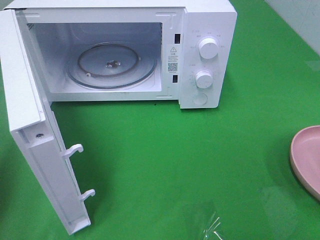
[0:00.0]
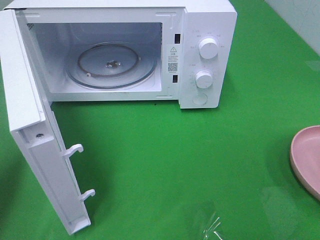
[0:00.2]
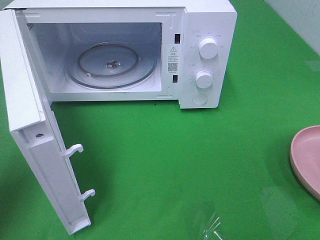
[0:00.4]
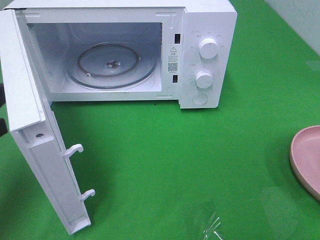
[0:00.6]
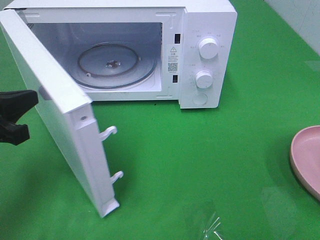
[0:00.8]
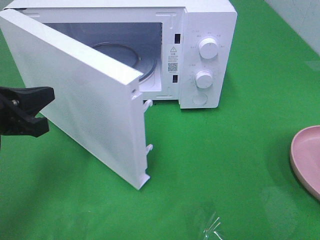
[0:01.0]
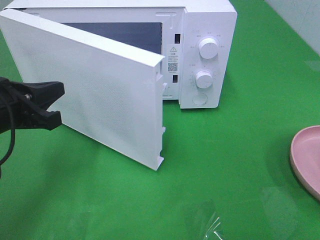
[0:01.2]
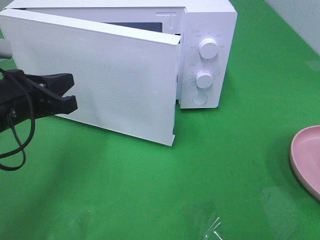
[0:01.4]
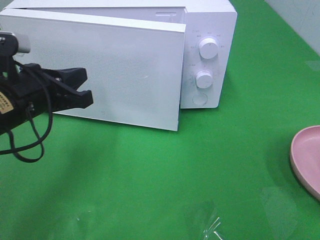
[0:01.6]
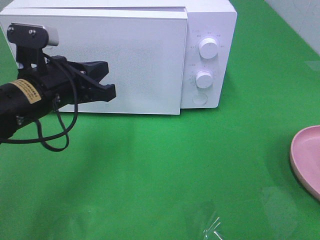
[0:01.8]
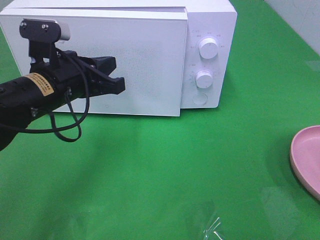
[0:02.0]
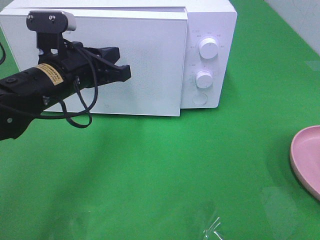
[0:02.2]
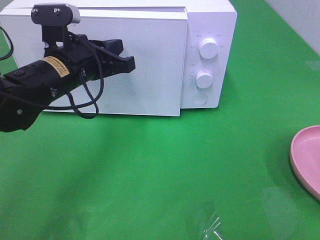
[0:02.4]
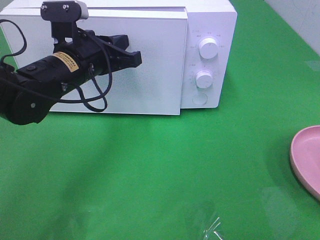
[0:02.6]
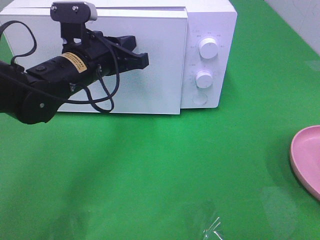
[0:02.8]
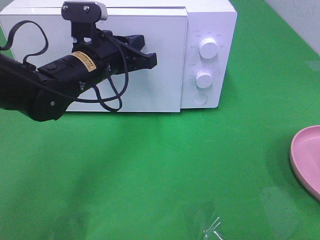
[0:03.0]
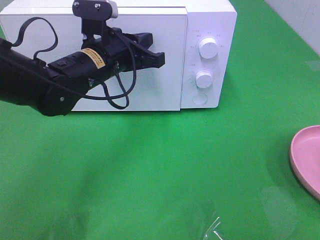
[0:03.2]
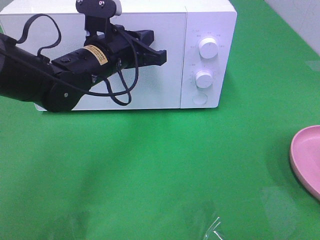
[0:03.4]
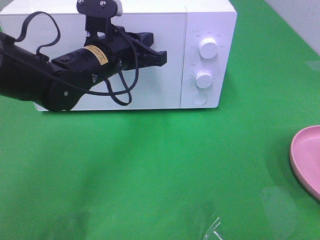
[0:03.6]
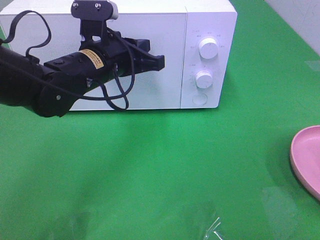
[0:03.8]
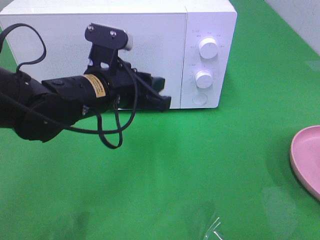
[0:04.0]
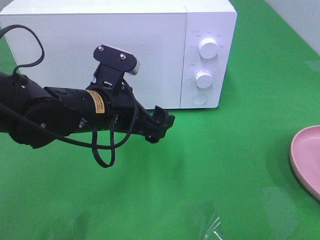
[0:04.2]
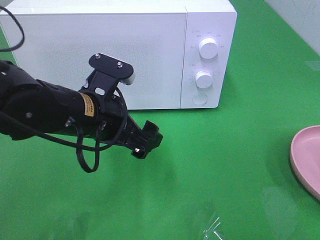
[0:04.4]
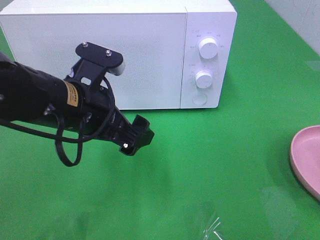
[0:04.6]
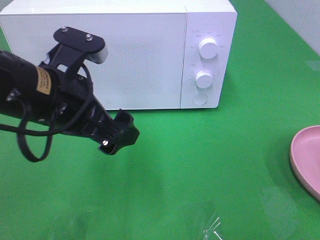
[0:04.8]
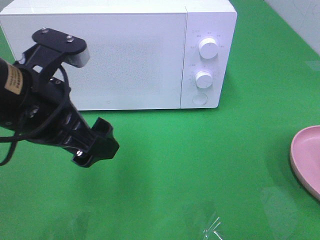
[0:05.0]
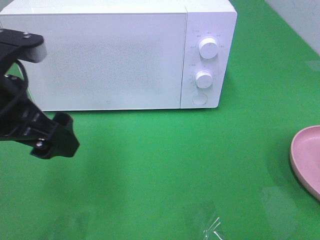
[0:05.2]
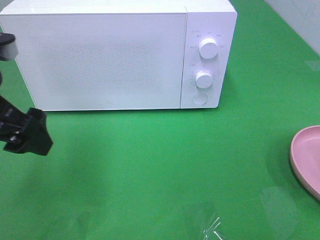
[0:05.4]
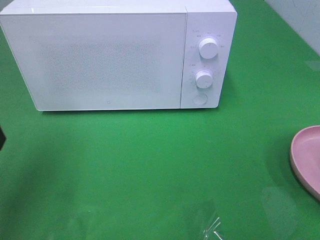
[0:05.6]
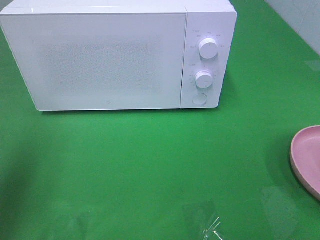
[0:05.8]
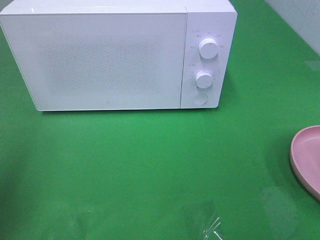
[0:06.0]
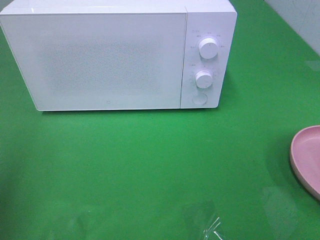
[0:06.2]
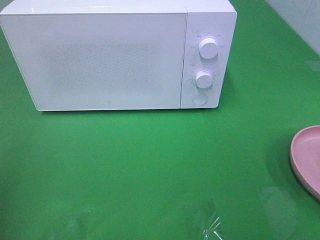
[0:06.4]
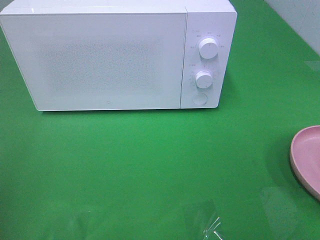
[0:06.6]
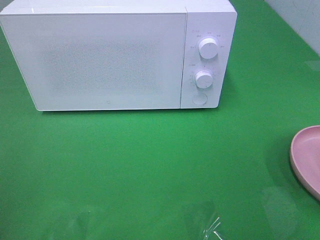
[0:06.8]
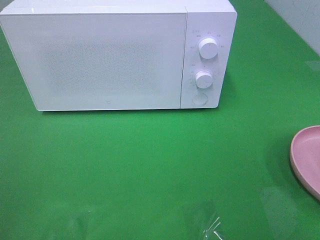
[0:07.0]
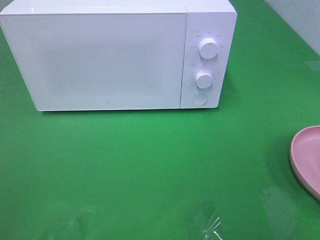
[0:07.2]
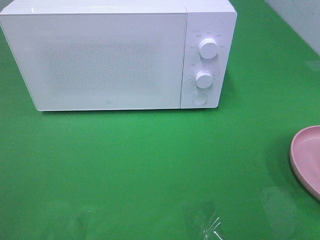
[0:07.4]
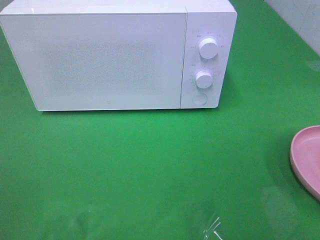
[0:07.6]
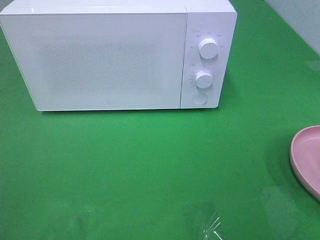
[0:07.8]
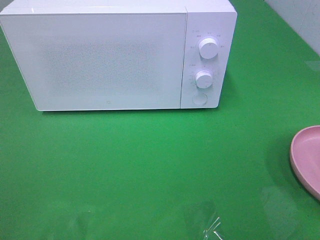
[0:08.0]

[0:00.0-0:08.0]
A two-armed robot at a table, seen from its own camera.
Task of the whole recording: Heat the burger.
Step, 0:00.0 to 0:04.0: Left hand: close the microwave door.
0:00.0 to 0:01.6: The left gripper is displaced to the right and forward by approximately 15 cm.
0:01.6 to 0:03.2: The left gripper shifts approximately 15 cm to the right and forward.
0:03.2 to 0:04.8: The left gripper heads backward, covering approximately 15 cm, and opens.
0:04.8 to 0:06.4: The left gripper travels to the left and backward by some 25 cm.

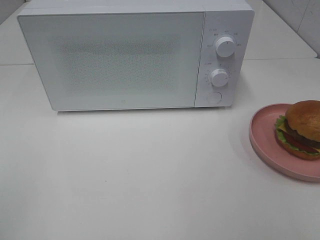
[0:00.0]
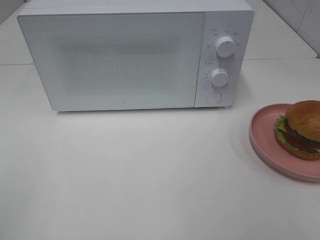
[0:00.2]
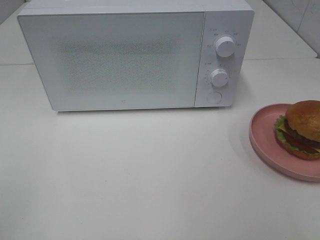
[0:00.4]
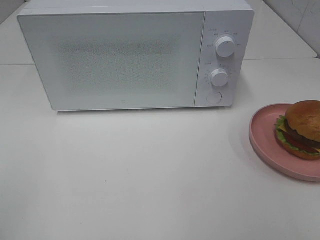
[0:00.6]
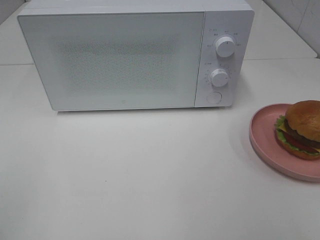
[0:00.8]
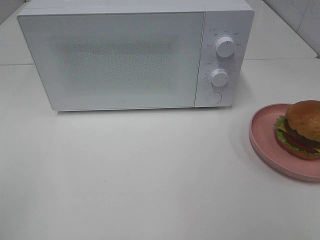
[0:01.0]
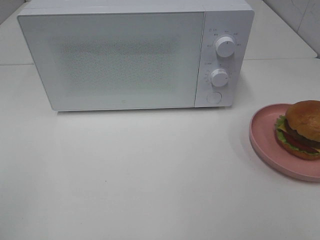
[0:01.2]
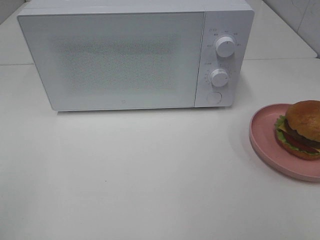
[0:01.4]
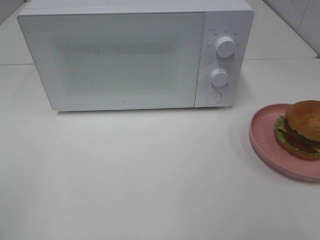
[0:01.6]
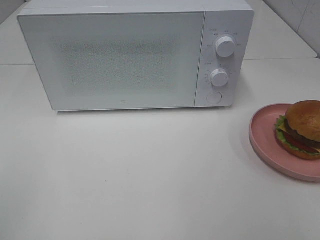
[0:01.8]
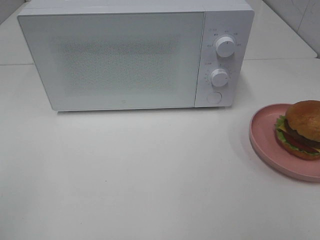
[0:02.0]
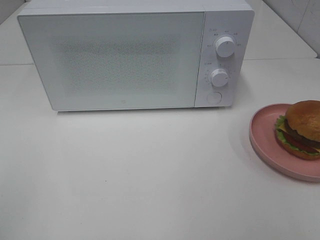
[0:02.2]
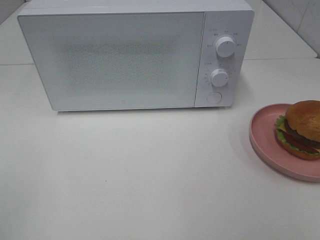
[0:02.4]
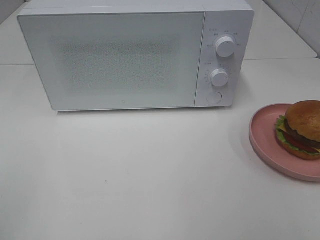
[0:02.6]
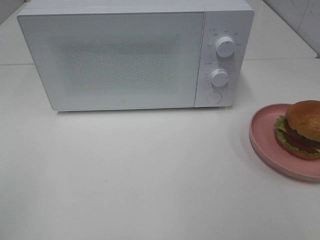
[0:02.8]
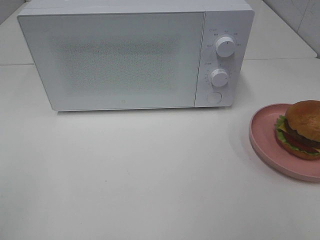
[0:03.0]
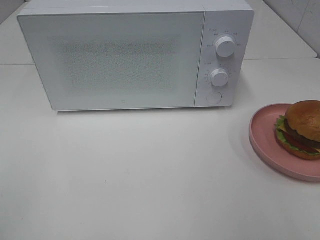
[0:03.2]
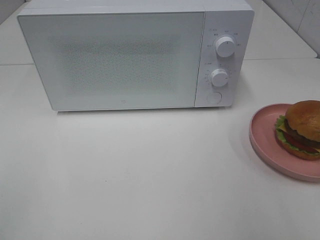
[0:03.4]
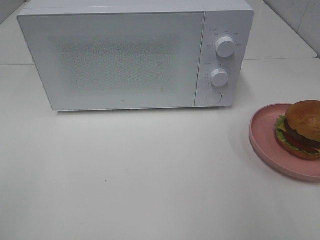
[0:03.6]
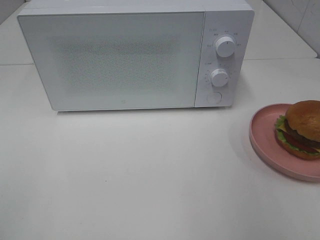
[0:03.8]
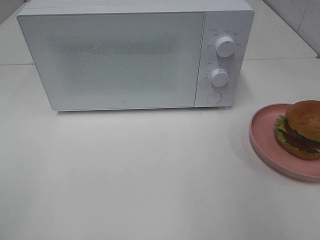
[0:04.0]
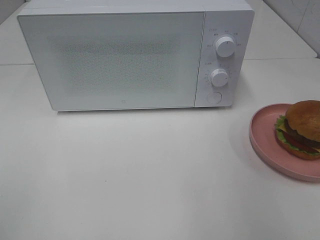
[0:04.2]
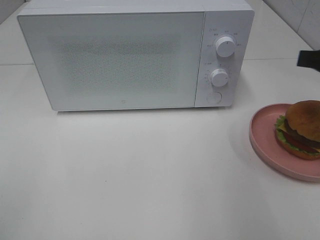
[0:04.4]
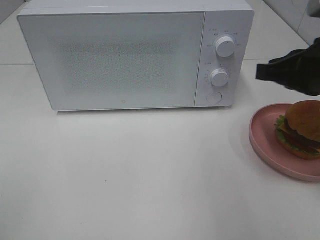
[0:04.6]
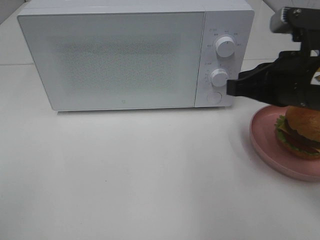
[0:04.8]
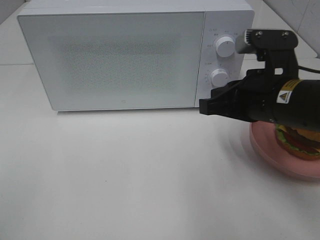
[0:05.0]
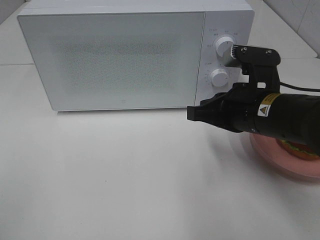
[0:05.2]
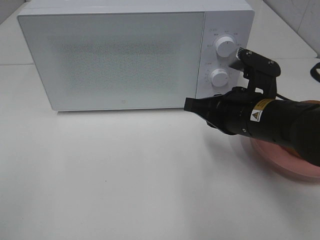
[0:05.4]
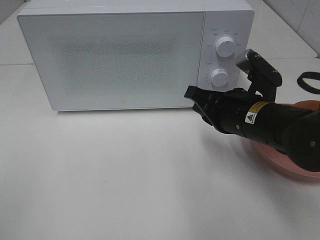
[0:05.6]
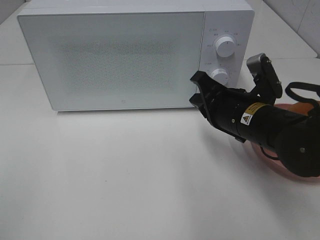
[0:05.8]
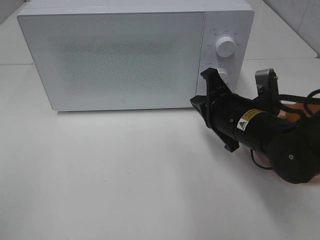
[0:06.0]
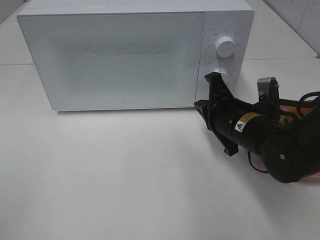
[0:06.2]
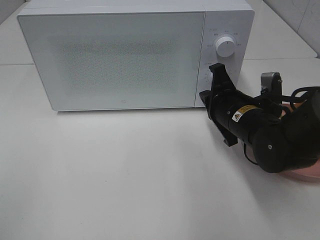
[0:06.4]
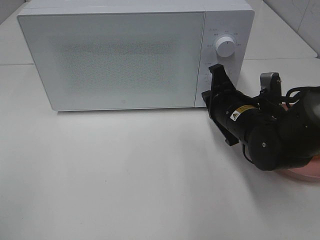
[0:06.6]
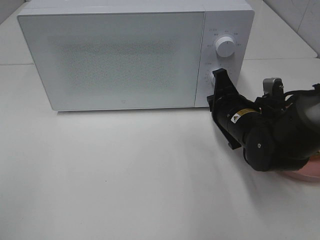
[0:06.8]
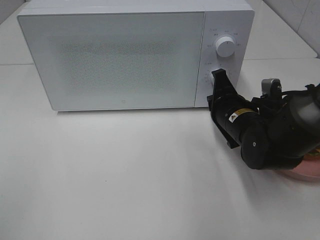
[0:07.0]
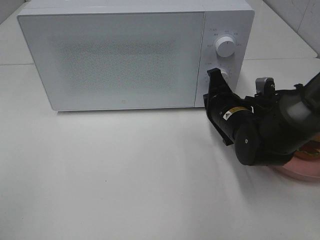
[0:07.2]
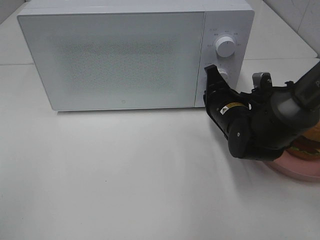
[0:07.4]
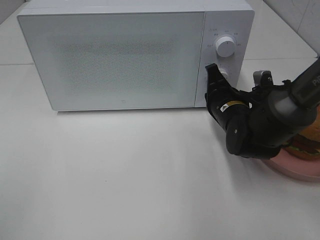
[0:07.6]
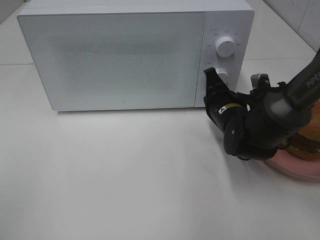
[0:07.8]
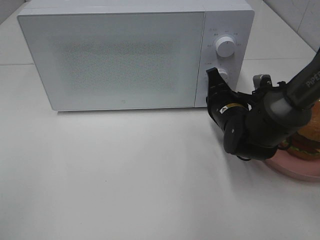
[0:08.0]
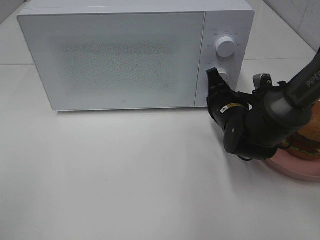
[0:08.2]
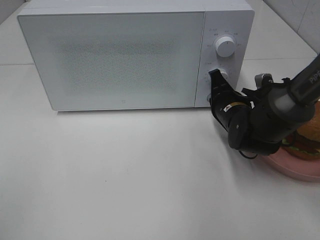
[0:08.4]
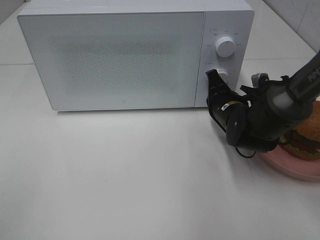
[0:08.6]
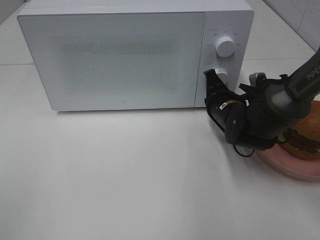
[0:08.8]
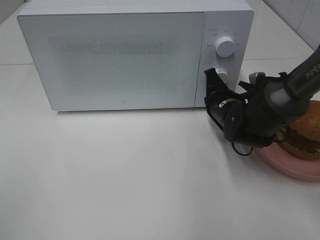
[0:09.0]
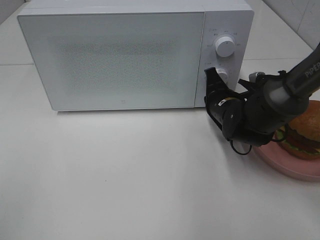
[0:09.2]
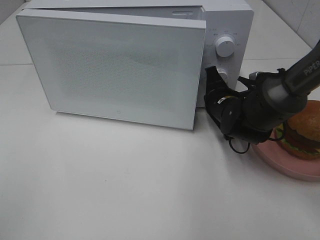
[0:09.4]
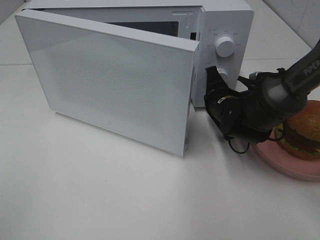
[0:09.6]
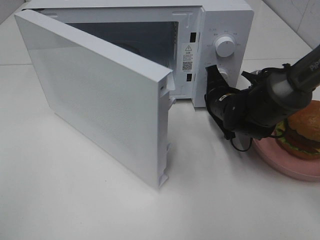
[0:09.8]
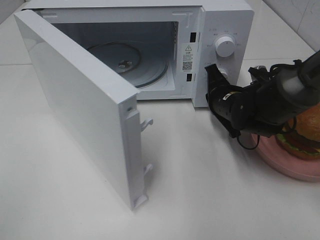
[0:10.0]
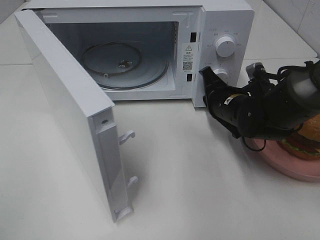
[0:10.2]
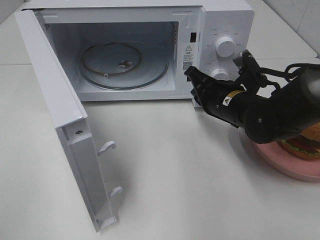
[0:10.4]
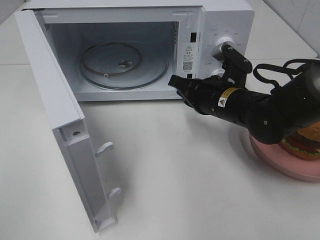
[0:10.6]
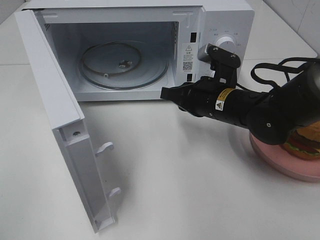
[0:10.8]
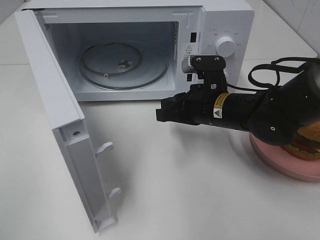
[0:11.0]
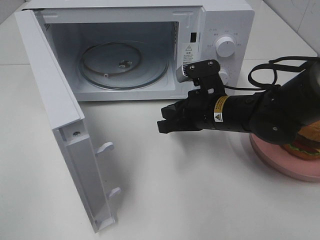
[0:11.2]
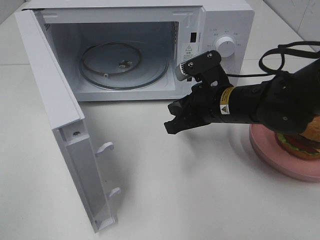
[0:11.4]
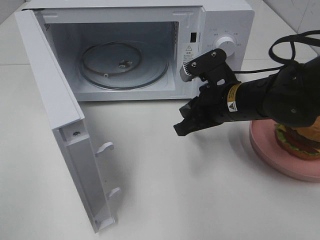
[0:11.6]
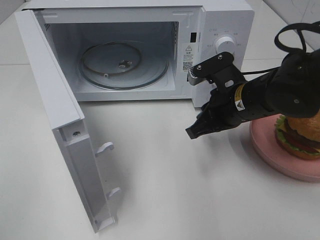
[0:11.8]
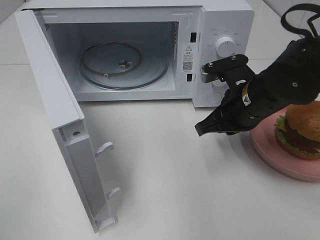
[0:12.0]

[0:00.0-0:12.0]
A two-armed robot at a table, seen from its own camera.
Task of the whole recording: Heat the burger.
Step, 0:00.0 to 0:10.2: Right hand: press the switch.
0:00.0 to 0:01.6: Neither gripper changes place.
0:03.0 to 0:04.4: The right gripper moves forward, roughly 20 cm, and closes its fingers.
0:04.4 to 0:06.0: The right gripper is displaced downward and to the left by approximately 20 cm.
0:06.0 to 0:07.6: The right gripper moves forward, roughly 5 cm.
0:07.6 to 0:09.0: The grippers move only a little.
0:10.4 to 0:12.0: The right gripper ends up about 5 cm from where it was.

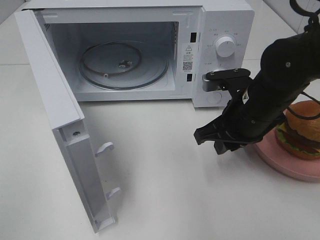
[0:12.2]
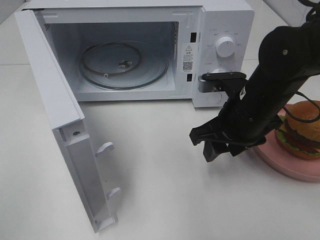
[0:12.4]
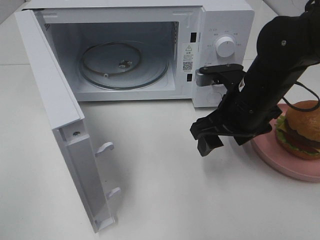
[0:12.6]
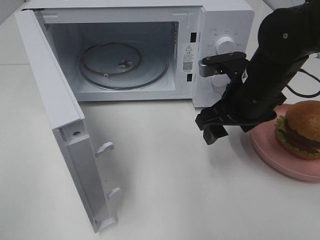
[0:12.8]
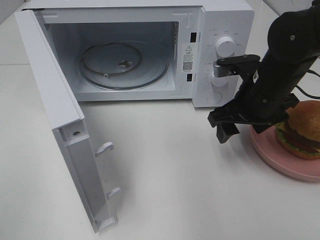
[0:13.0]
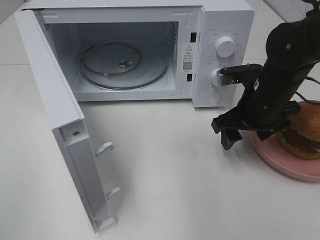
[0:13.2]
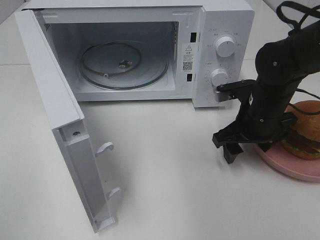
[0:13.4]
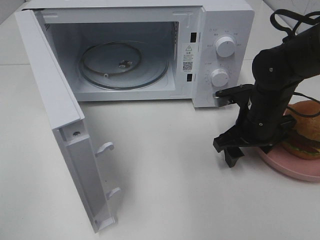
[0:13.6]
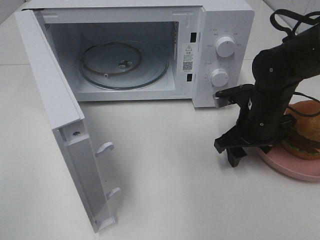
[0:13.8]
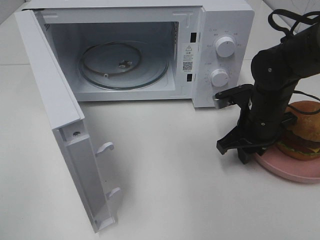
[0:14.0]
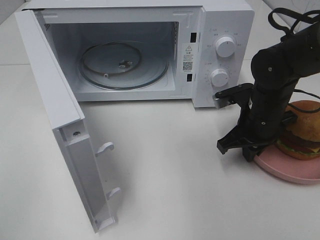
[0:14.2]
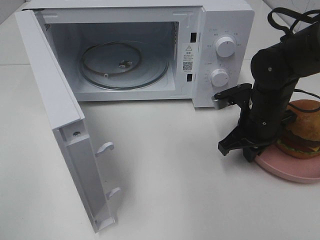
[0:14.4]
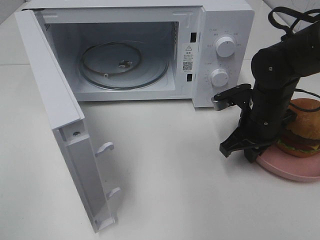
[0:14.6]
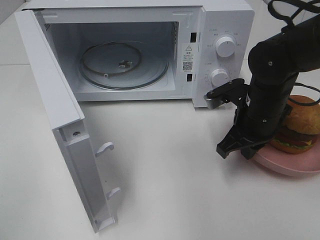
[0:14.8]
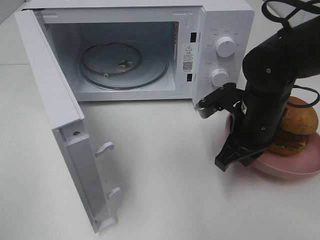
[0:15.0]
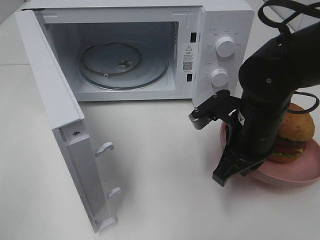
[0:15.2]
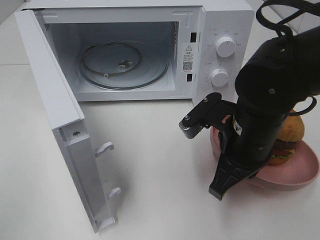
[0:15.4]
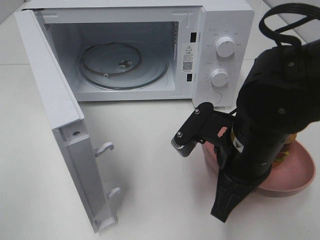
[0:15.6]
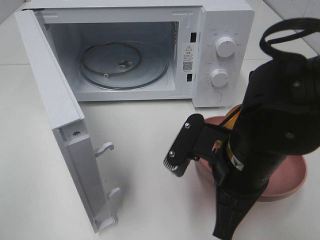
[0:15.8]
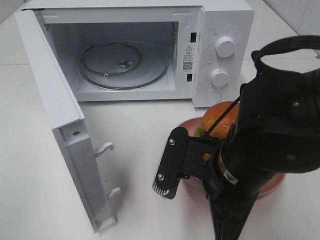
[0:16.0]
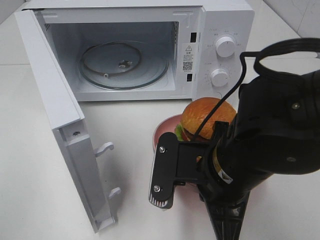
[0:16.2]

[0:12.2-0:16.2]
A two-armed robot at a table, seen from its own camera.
Task of the whole recording: Heat the burger.
Step, 0:12.2 to 0:14.2: Right hand: grab the plate with the hamburger.
0:12.2 to 0:13.6: The right gripper changes place by approximately 5 cm, and opens its fingers.
0:13.6 to 0:14.8: The right gripper closes its fingers.
0:14.8 to 0:16.2: The right gripper shifts roughly 15 cm backward and to the left.
